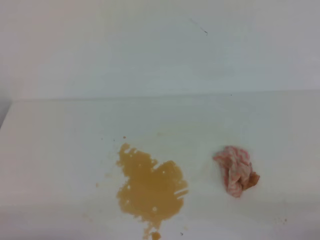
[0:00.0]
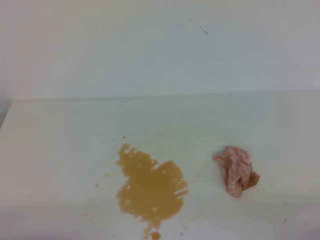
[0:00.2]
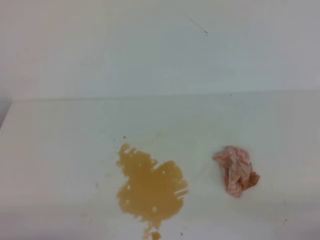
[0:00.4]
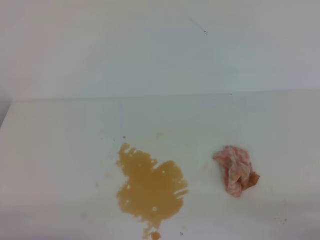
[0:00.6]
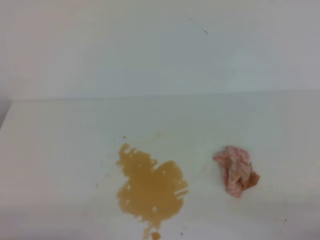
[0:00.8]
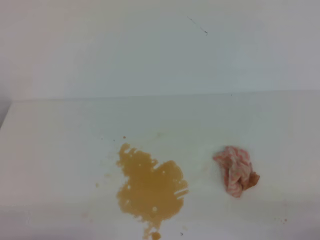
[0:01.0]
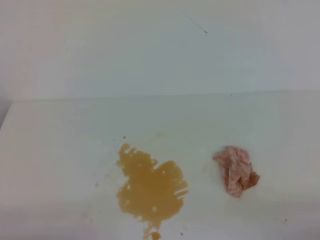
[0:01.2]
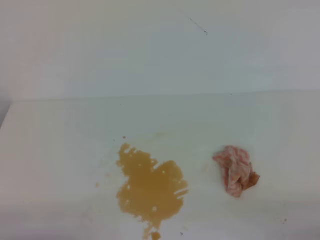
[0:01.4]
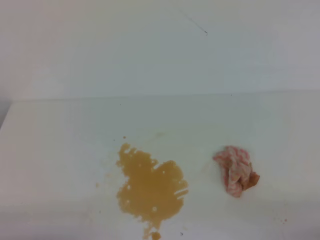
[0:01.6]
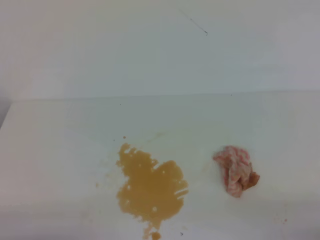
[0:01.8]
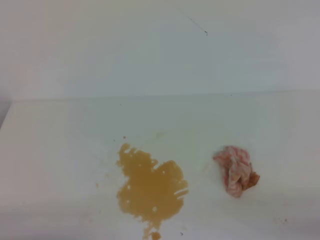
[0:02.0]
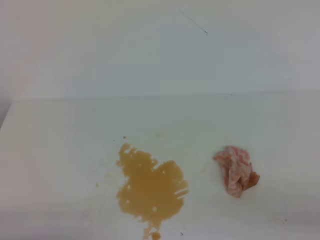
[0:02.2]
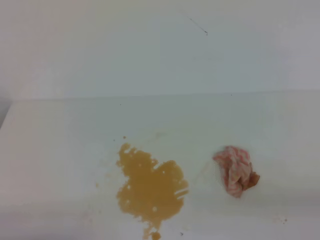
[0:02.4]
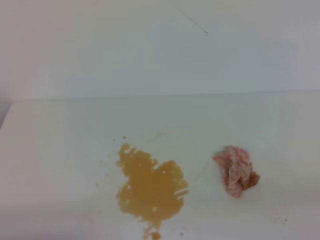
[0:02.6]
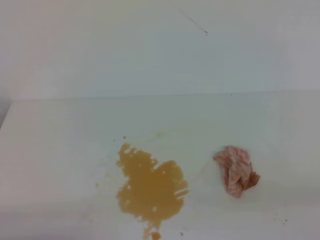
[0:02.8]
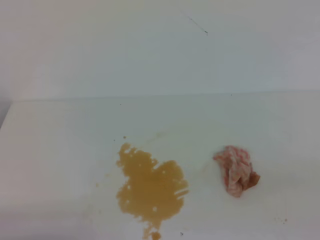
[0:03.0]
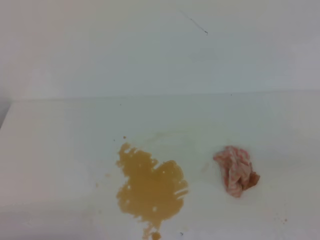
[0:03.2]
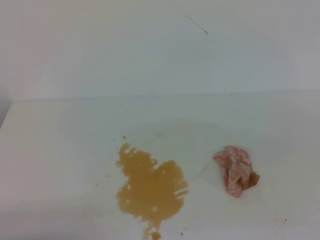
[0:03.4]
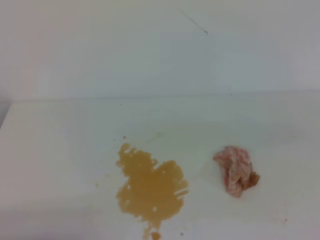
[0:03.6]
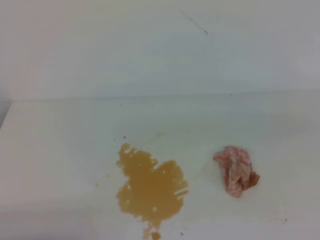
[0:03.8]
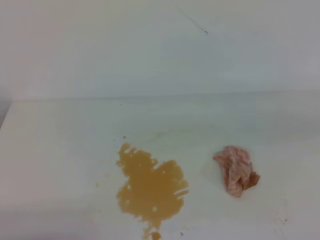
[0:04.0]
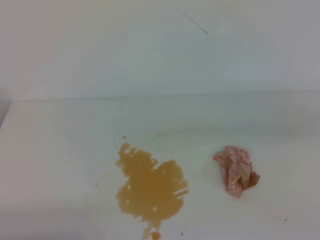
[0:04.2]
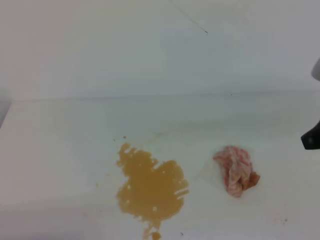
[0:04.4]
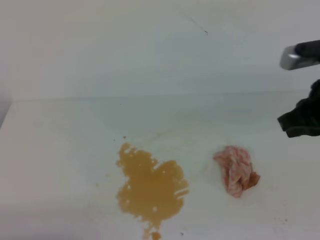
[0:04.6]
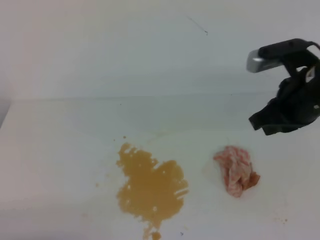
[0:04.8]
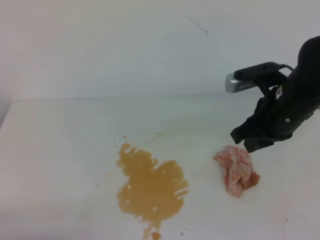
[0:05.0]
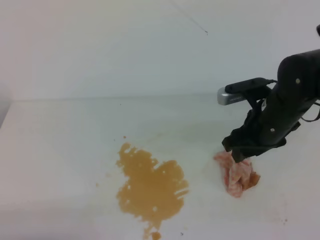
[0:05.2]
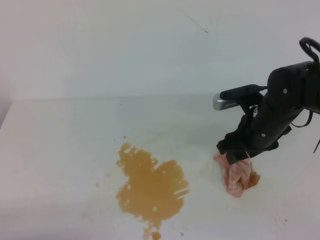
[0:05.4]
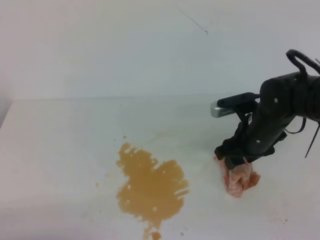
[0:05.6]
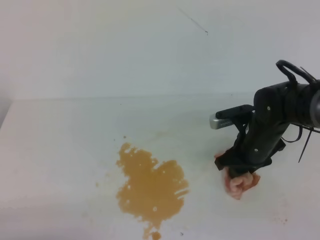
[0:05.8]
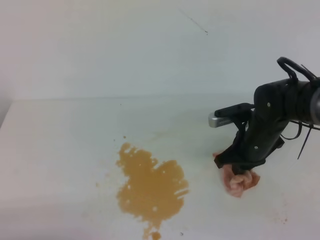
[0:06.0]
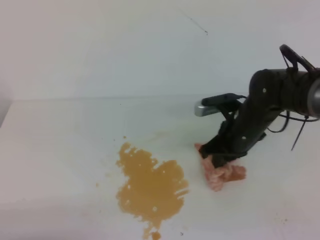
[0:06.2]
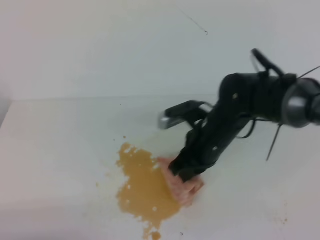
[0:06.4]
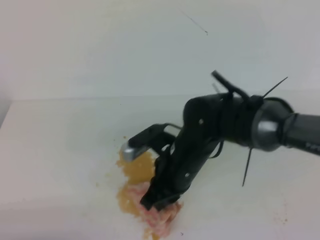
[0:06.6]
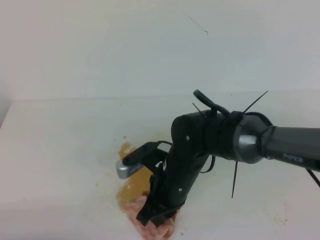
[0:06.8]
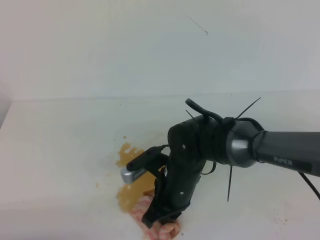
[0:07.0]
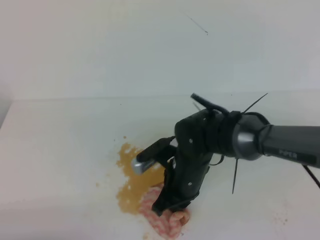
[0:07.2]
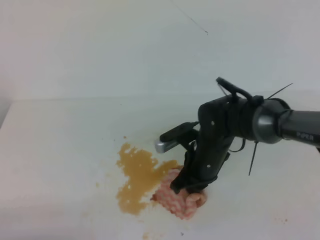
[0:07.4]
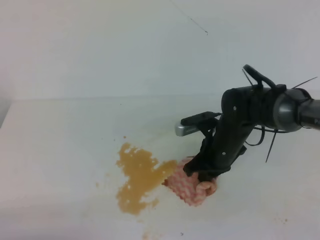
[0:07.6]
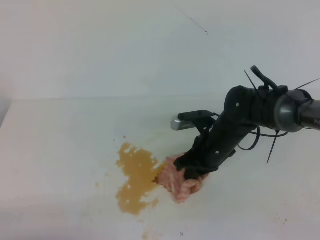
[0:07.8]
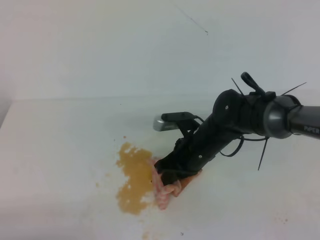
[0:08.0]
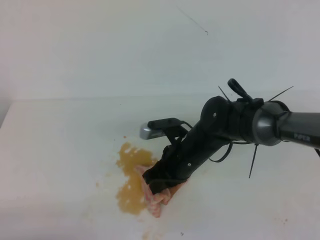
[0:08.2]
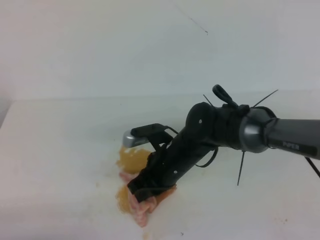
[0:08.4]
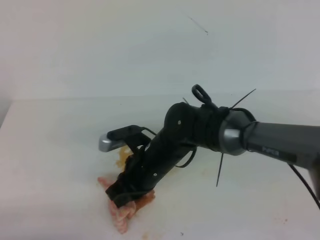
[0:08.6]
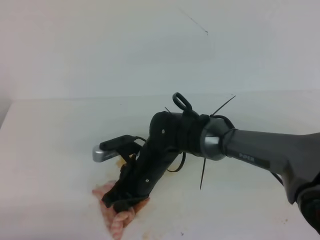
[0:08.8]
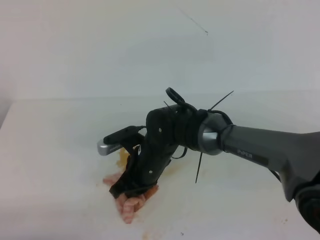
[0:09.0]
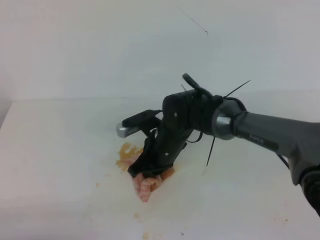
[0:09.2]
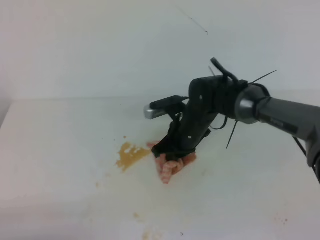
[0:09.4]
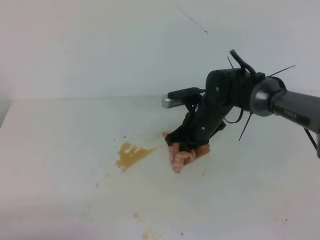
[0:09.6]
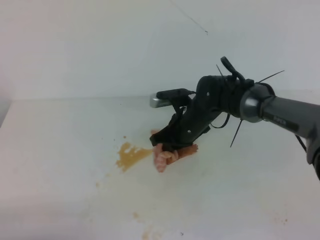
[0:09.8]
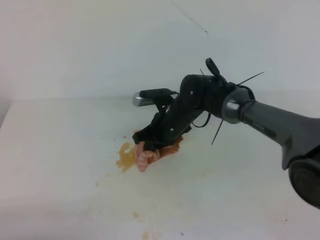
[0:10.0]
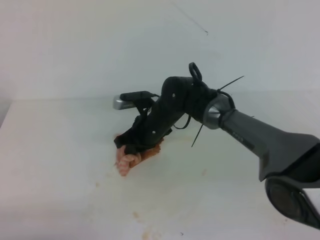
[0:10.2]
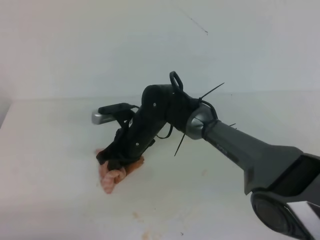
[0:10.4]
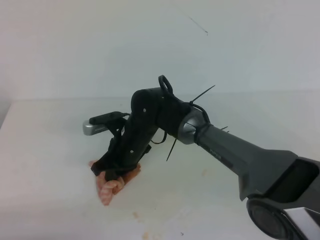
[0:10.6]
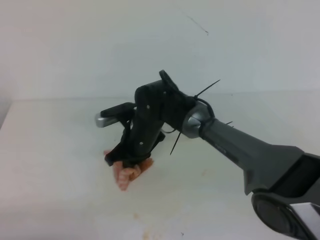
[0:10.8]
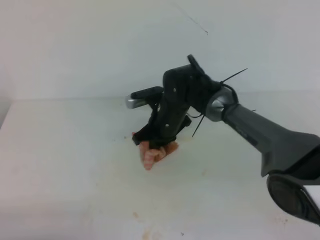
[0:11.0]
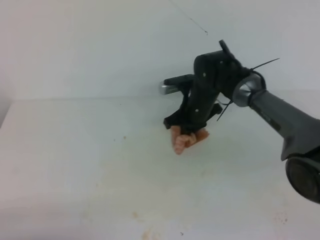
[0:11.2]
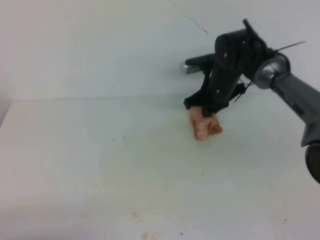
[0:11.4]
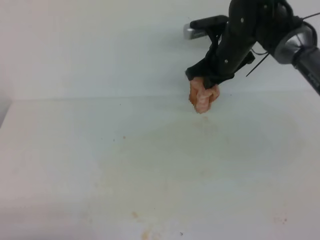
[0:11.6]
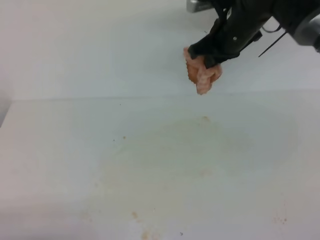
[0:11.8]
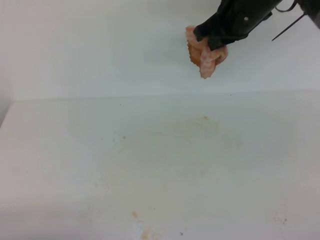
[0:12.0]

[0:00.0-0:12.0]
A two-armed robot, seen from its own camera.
0:00.0 to 0:01.6: Neither gripper changes place.
0:03.0 to 0:04.4: The right gripper goes about 20 cm forward.
0:04.4 to 0:06.0: The right gripper moves downward, forward and to the left, roughly 25 cm, and opens, then closes again.
0:06.0 to 0:07.6: The right gripper goes approximately 5 cm to the left.
0:07.6 to 0:09.0: The right gripper shifts approximately 10 cm to the left.
0:09.0 to 0:10.4: The right gripper travels forward by approximately 5 cm, and travels to the right and back again, roughly 10 cm each way.
0:10.4 to 0:12.0: The right gripper moves upward and to the right, roughly 30 cm.

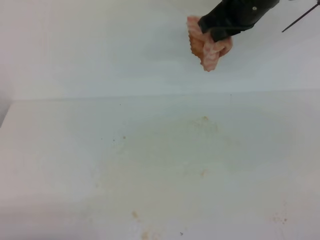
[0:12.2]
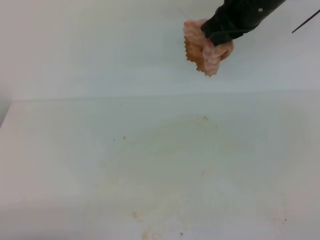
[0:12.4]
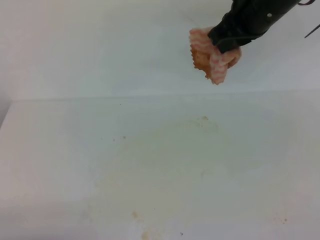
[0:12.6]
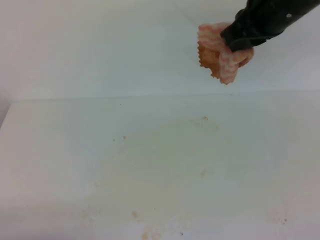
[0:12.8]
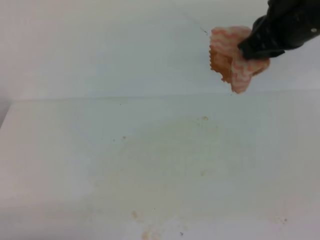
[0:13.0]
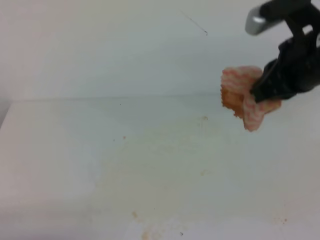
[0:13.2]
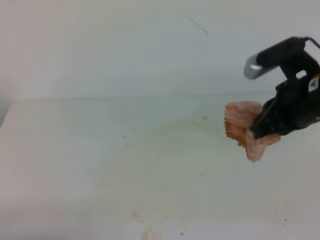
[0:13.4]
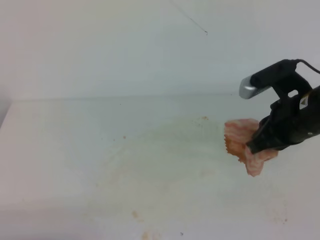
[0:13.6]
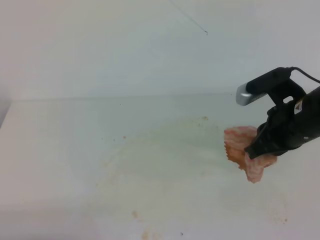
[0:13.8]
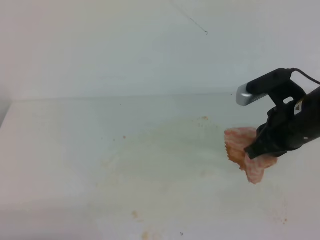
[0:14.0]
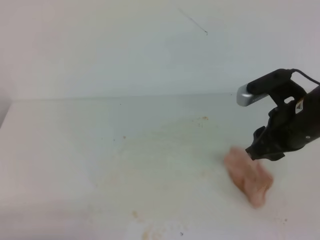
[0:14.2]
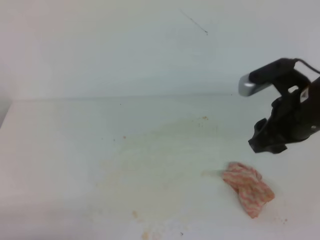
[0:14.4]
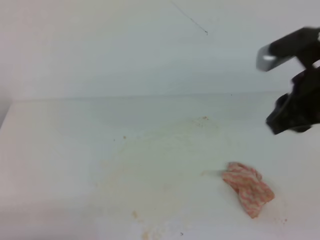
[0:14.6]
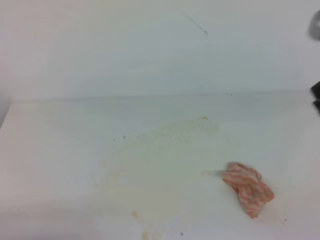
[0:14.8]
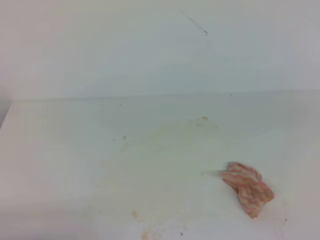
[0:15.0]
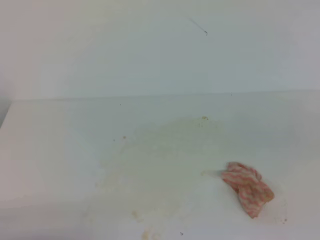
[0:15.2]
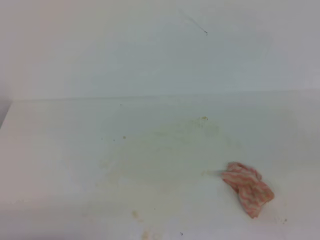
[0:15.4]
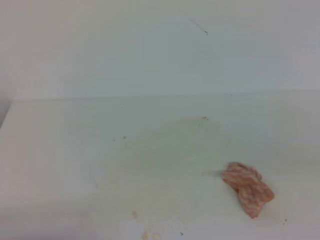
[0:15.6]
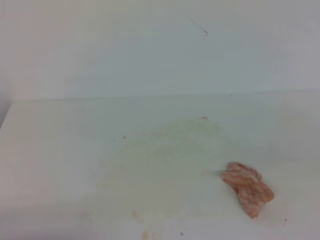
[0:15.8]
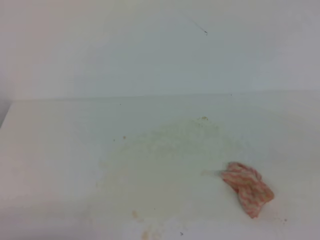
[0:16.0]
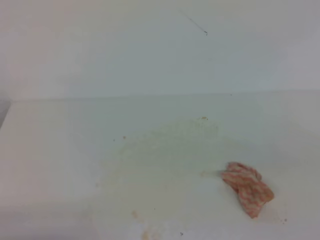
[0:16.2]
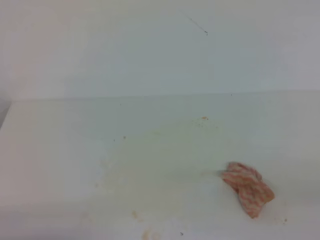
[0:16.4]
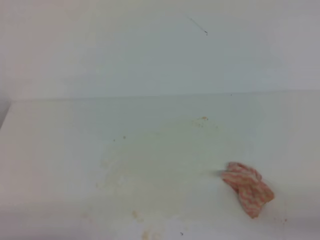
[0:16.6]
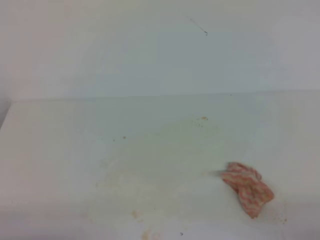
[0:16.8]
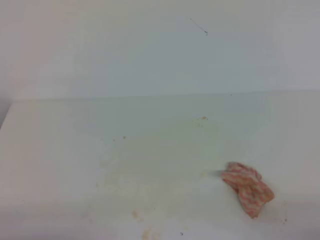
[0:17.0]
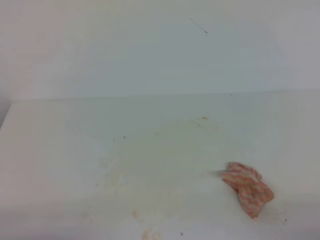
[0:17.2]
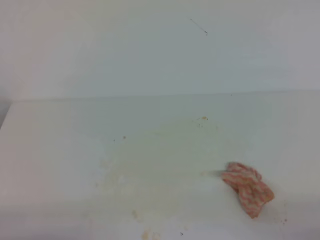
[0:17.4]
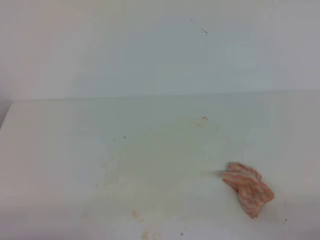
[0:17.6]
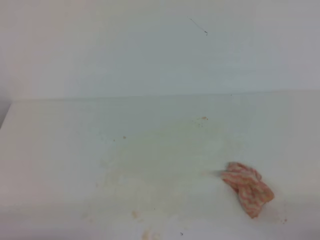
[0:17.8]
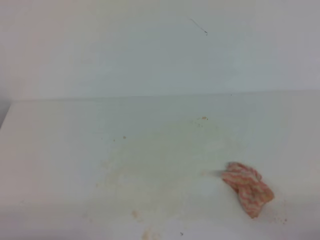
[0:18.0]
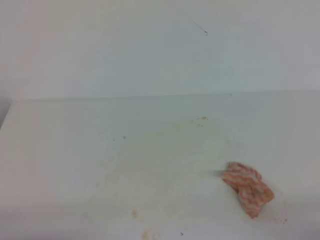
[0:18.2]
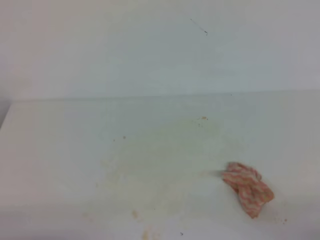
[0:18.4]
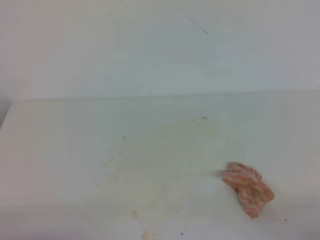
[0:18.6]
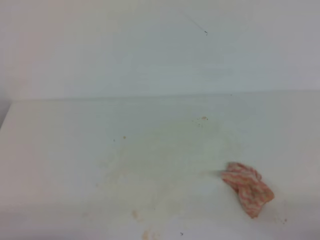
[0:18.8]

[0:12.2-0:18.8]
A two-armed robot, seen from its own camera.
0:12.2 to 0:13.8: The right gripper heads backward, downward and to the right, covering approximately 20 cm.
0:13.8 to 0:15.4: The right gripper moves backward, to the right and upward, roughly 20 cm, and opens, then closes once more.
0:17.2 to 0:18.8: Both grippers stay about where they are.
